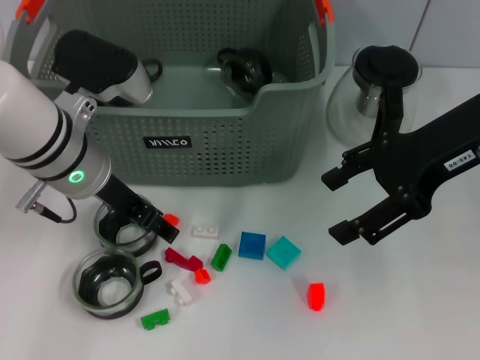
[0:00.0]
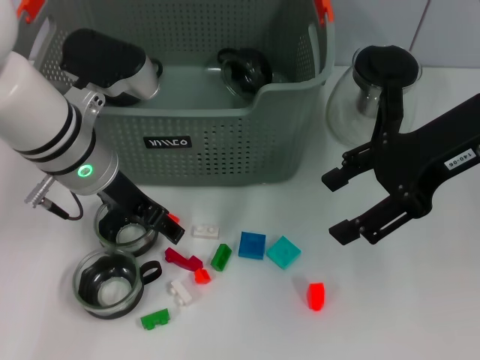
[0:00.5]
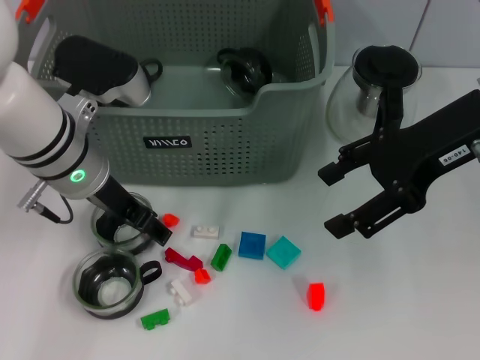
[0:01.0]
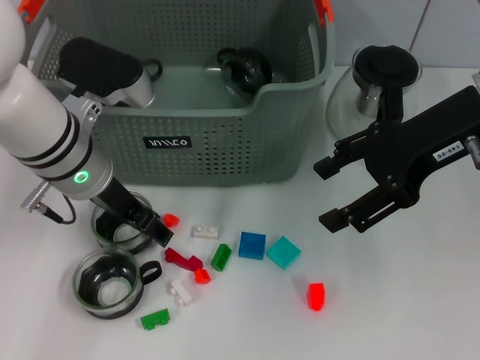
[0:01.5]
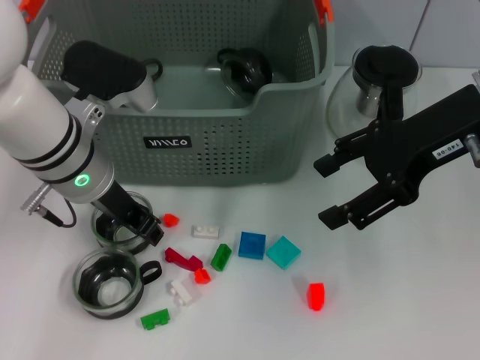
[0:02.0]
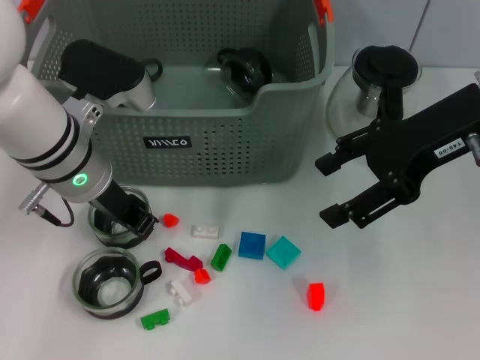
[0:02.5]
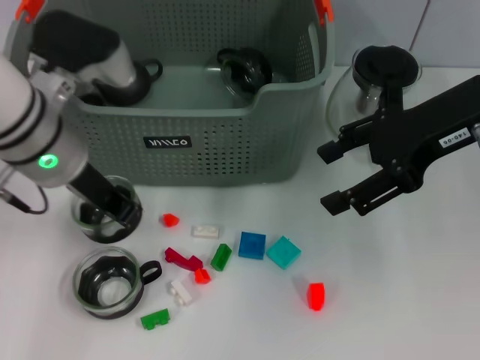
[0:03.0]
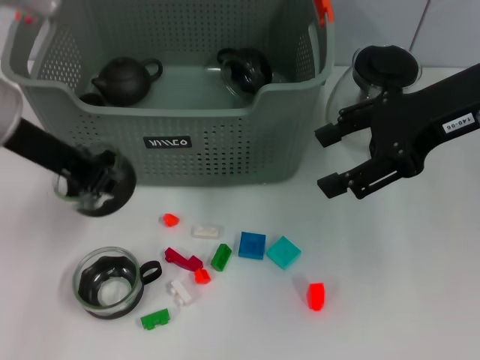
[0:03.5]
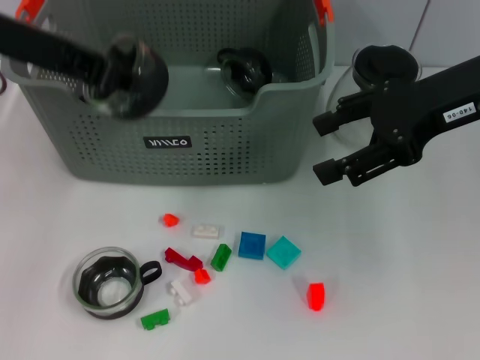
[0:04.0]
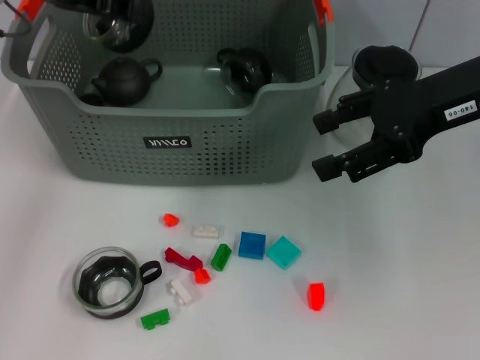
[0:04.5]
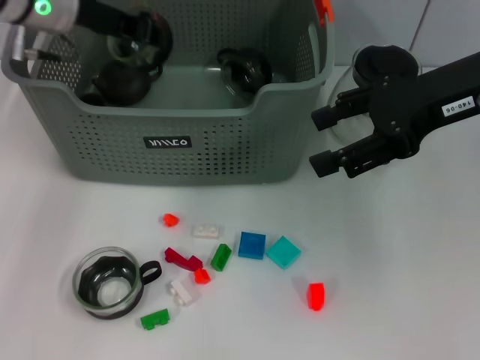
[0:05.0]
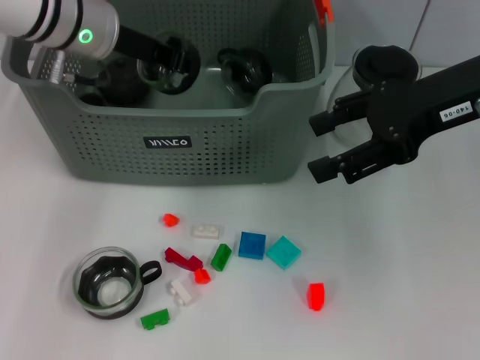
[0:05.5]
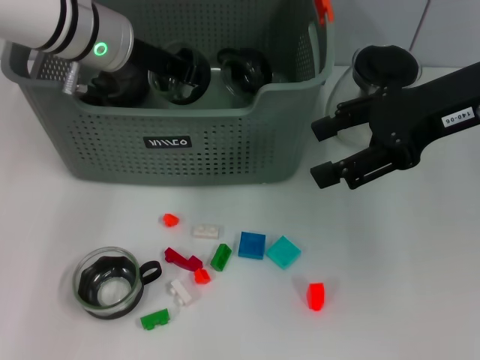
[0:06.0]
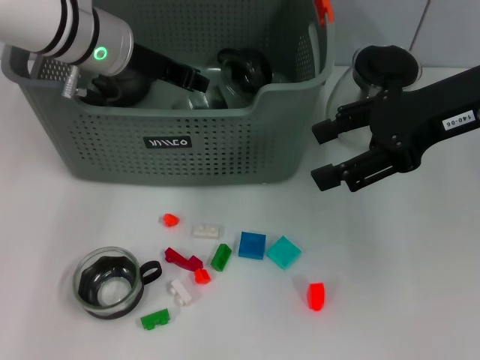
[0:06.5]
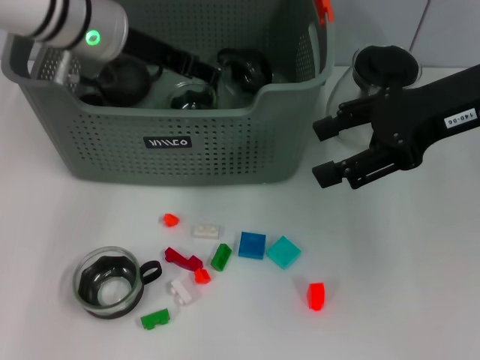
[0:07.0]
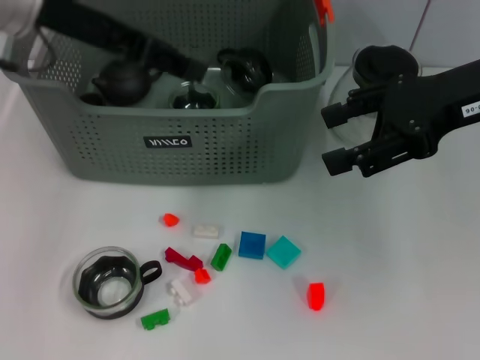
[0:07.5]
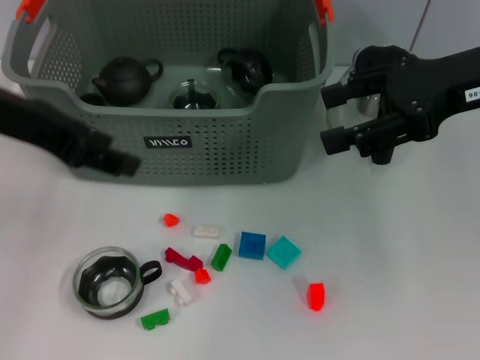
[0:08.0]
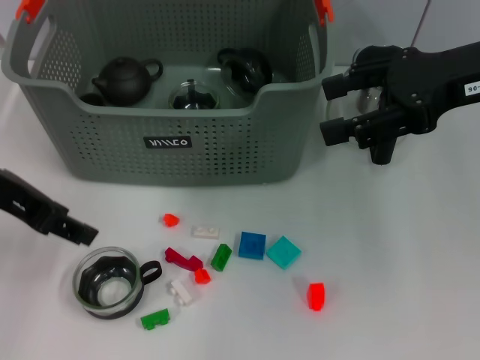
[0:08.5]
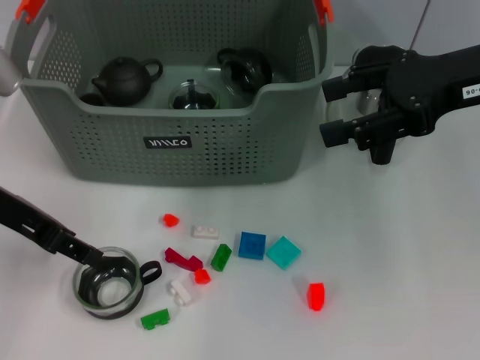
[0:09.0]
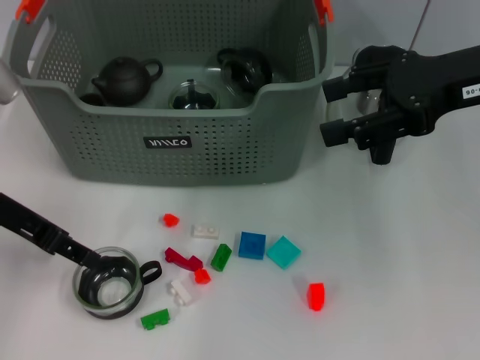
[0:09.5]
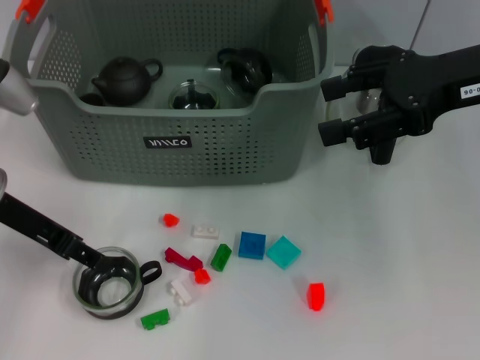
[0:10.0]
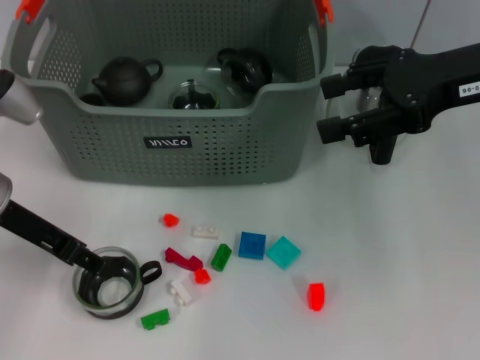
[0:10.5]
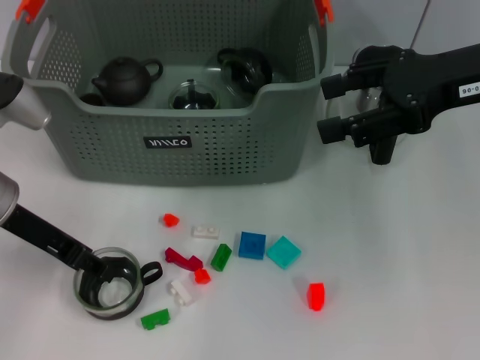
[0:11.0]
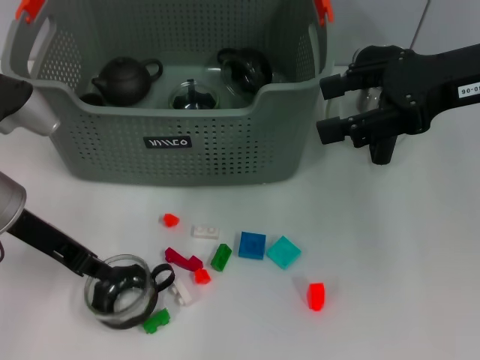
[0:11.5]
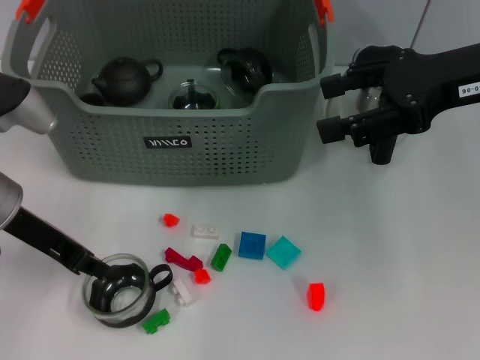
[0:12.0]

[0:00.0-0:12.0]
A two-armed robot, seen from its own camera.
Task of the whole recording: pick up the teacup on the table and place it into the storage bin, pick up the block on the table and place it into the storage bin.
Step, 0.0 to 2.5 s: Grasp the cup with left gripper.
Step, 3.0 to 7.0 s: Place the cup in the storage box with left gripper.
Step, 7.5 to 11.5 s: Grasp the cup with left gripper.
0.0 to 2.0 s: The left gripper closes its fingers.
2.0 to 4.0 s: The left gripper shifts about 15 cm upward, and closes up.
4.0 to 6.0 s: The left gripper heads forward, downward and to the right, covering some 15 cm.
6.0 to 8.0 s: The left gripper is displaced backward, to the left and upward by roughly 15 cm, and opens.
8.0 to 10.0 s: The left gripper travels downward by approximately 10 cm.
10.0 to 12.0 s: The left gripper closes up.

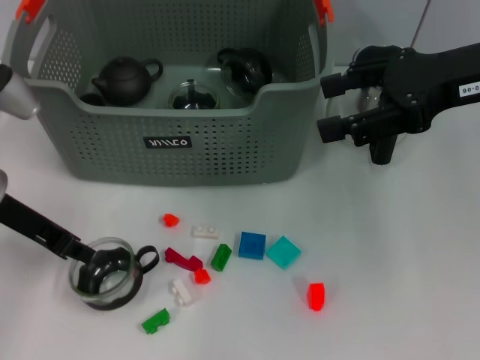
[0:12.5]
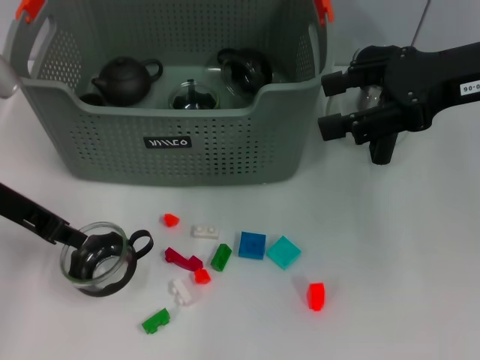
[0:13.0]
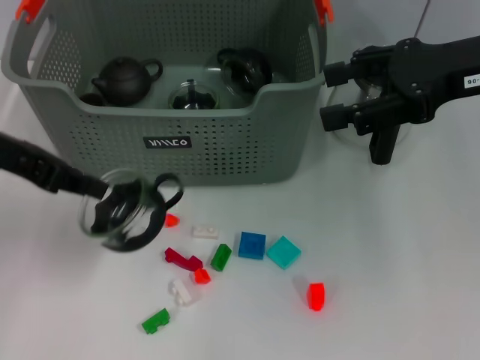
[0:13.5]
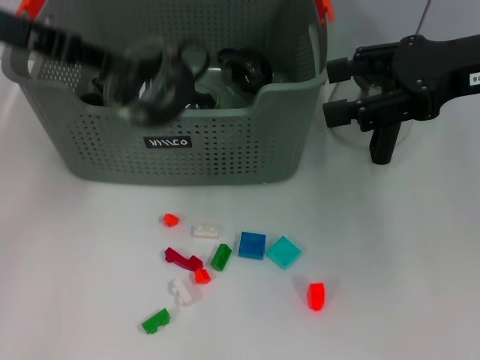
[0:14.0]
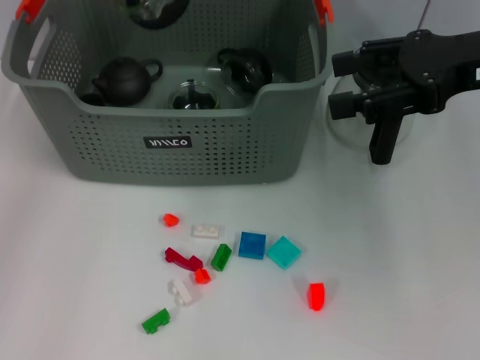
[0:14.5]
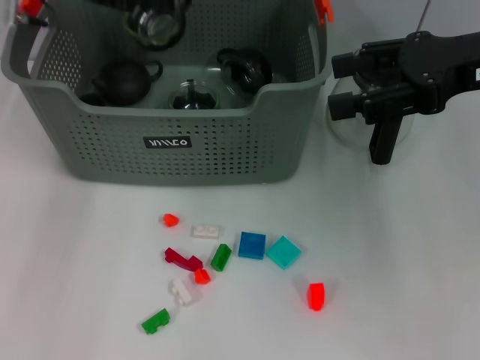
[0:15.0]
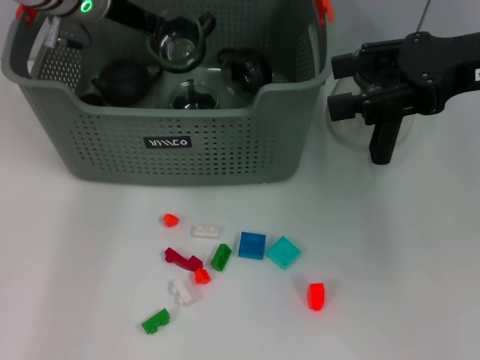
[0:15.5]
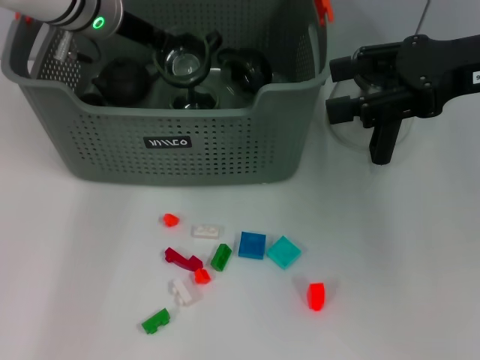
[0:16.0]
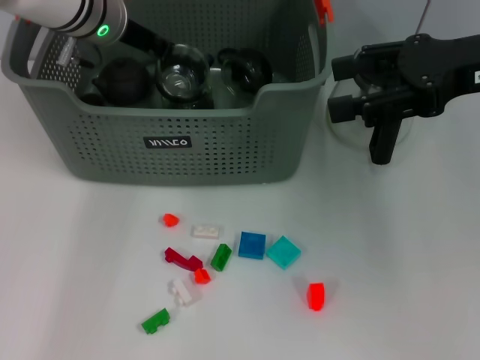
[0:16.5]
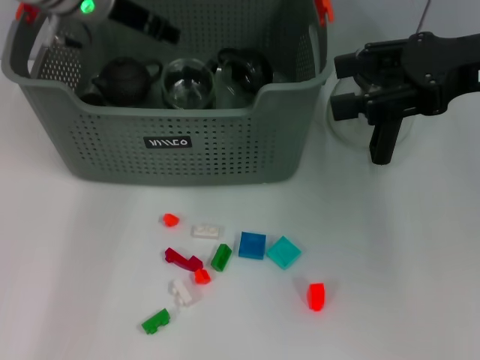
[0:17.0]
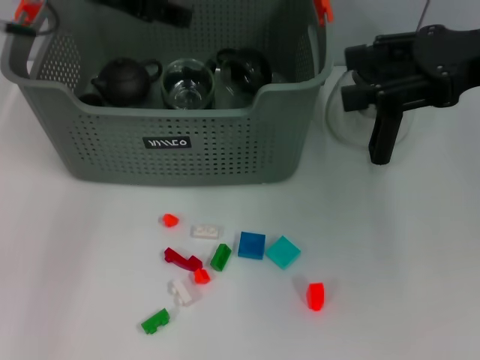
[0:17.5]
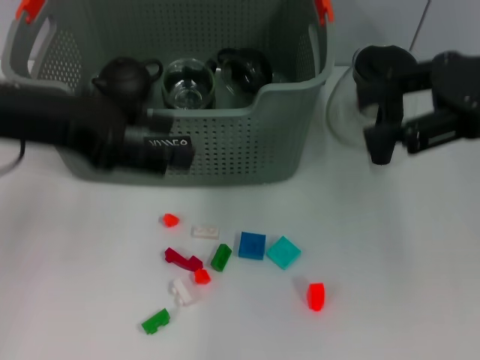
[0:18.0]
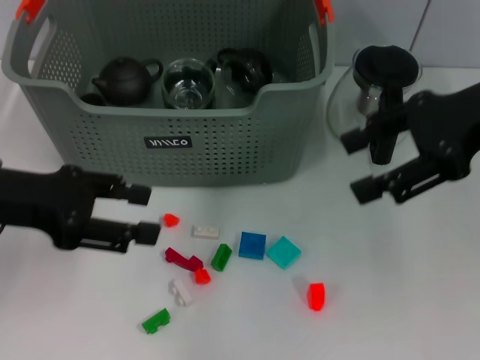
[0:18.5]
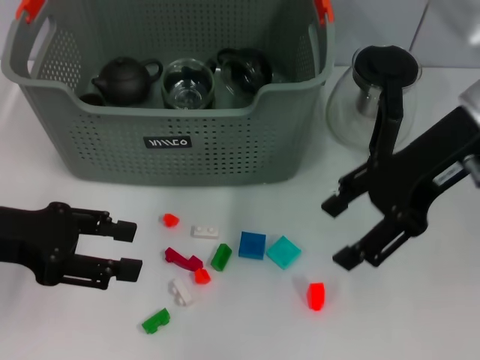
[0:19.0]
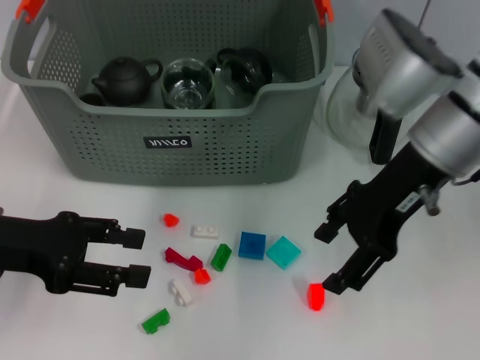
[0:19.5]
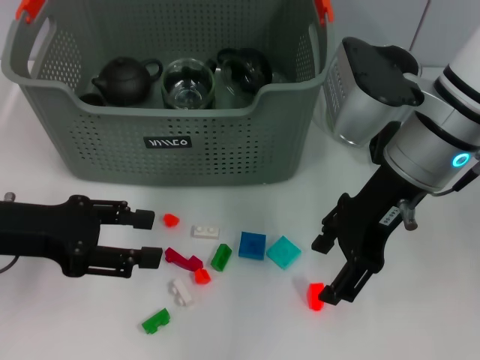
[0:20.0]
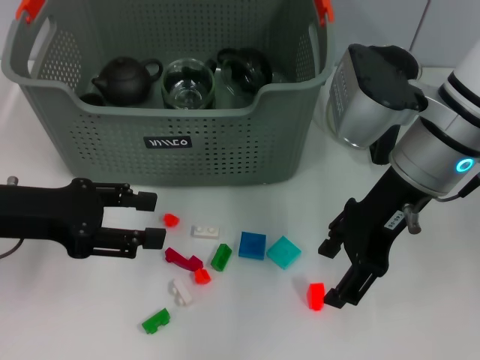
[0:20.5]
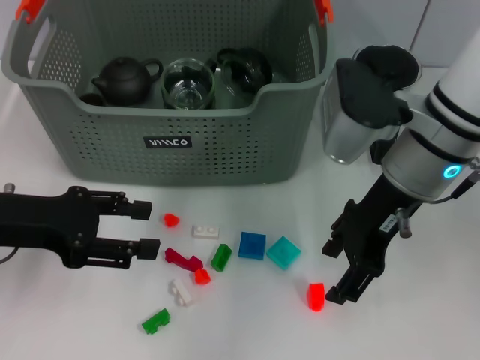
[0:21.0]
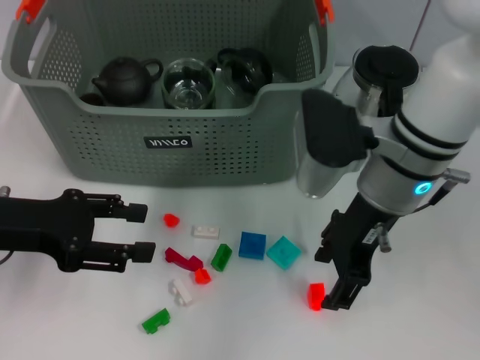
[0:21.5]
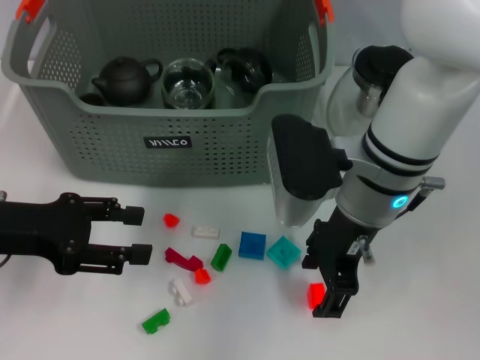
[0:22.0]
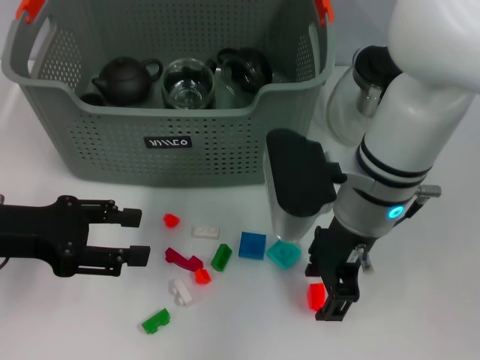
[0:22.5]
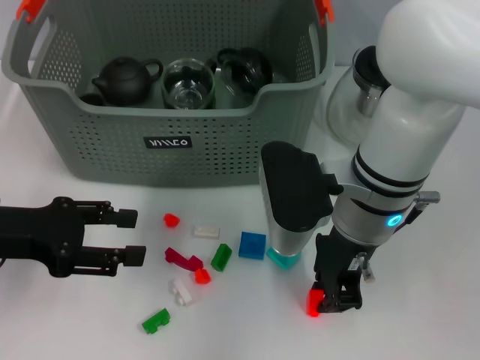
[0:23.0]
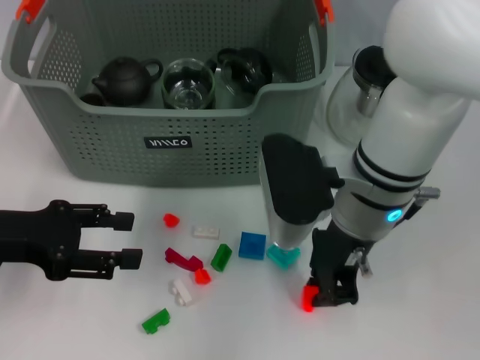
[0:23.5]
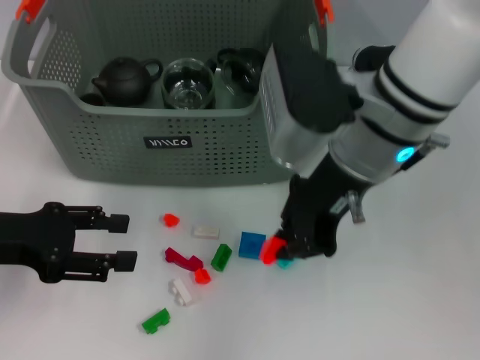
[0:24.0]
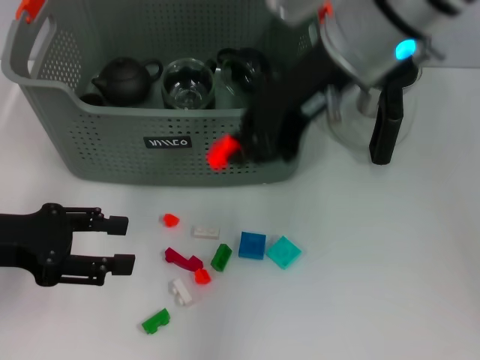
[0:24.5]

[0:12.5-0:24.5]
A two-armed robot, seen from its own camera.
Task of the whole recording: pick up the teacup on the table and place it into the storage bin, pick up the block on the table and place it into the storage bin.
Step, 12.5 to 17.0 s: Place the cup in the storage box with left gripper.
Step, 17.5 to 23.0 s: Grasp the orange block with right gripper.
12.5 to 14.5 s: The left gripper goes some 20 cm upward and forward.
14.5 to 16.5 s: The left gripper heads downward and to the right, covering about 15 cm.
16.5 to 18.5 s: The left gripper travels backward and to the left by about 20 cm, and opens its fingers.
18.5 to 20.5 s: The right gripper is displaced to the left and downward by approximately 10 cm.
20.5 to 22.5 s: The right gripper travels to the left by approximately 5 cm.
22.5 to 24.5 s: The right gripper travels upward by about 15 cm, and closes its fingers.

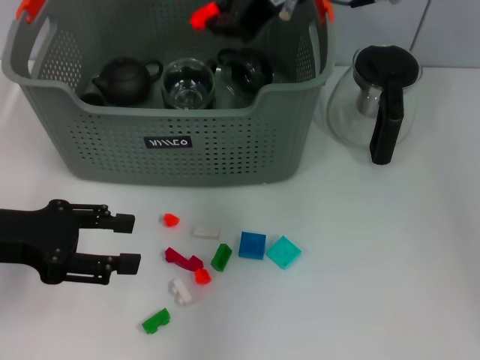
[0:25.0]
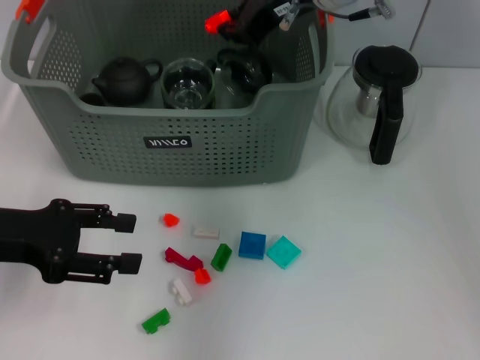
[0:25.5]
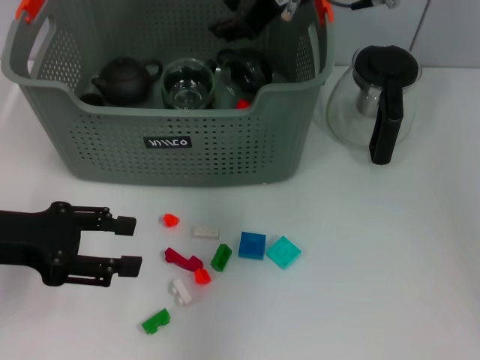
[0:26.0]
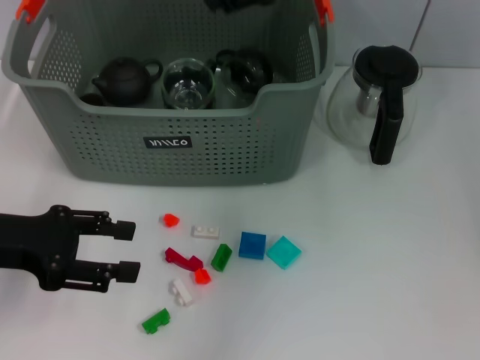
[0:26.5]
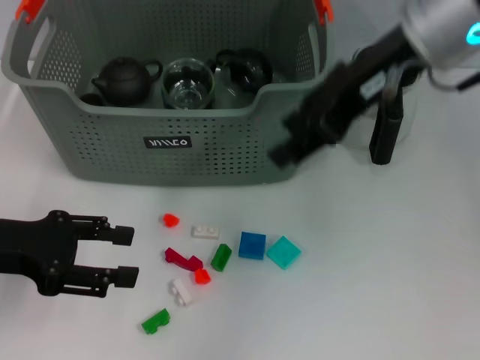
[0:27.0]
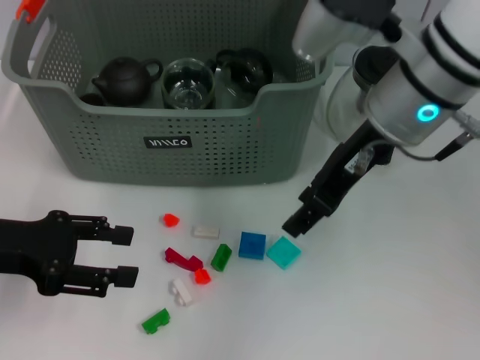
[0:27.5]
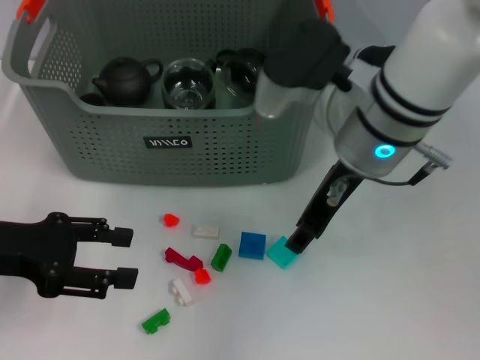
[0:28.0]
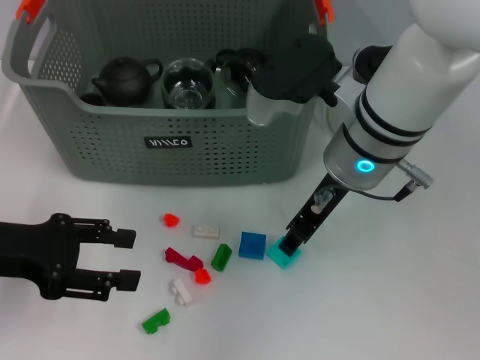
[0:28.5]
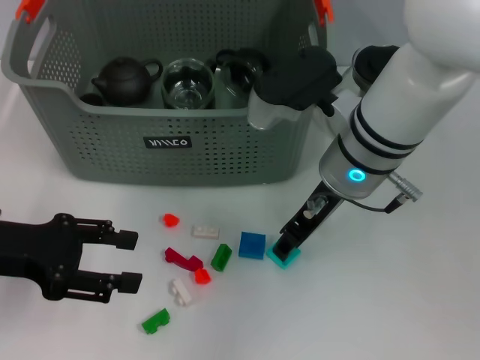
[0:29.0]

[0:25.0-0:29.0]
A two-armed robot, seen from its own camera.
Task of the whole recording: pick up the teacup on the table and place it into the storage bin, pick up the block on the table and place it into the storage bin.
25.0 to 27.0 s: The right gripper heads backward and to the right, covering approximately 10 cm, and opens.
27.0 to 29.0 s: The right gripper travels downward and to the left by roughly 15 cm.
